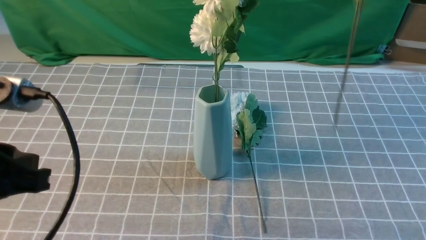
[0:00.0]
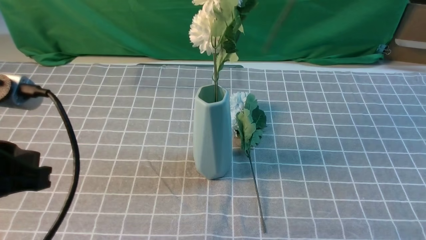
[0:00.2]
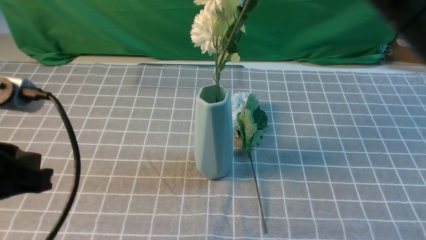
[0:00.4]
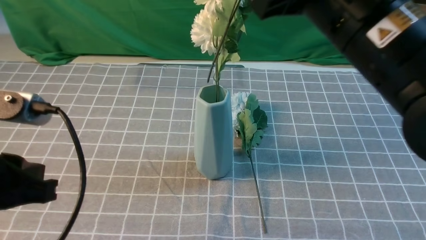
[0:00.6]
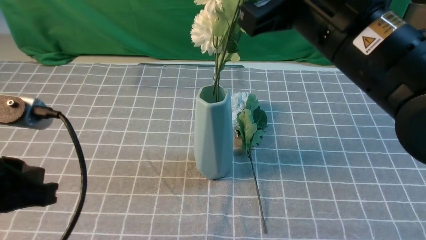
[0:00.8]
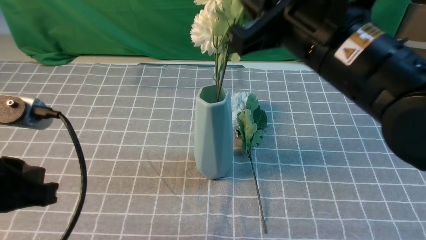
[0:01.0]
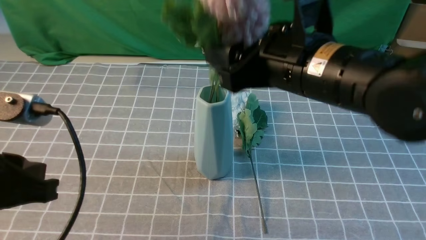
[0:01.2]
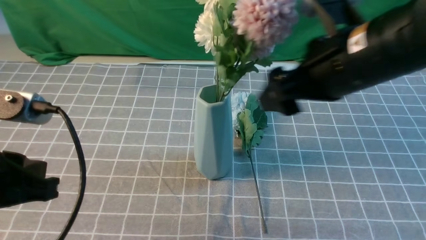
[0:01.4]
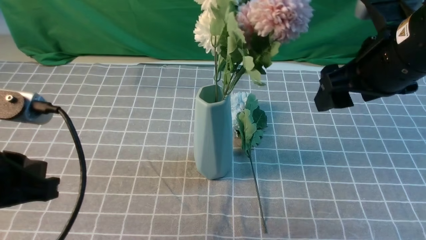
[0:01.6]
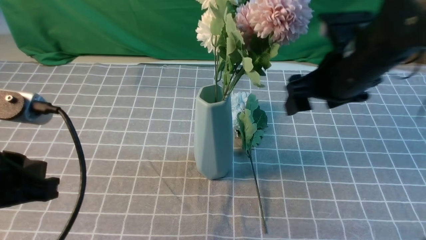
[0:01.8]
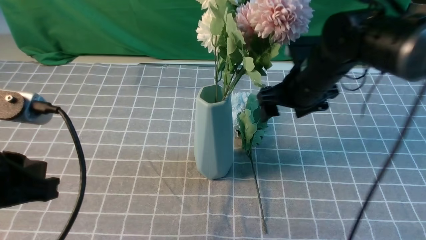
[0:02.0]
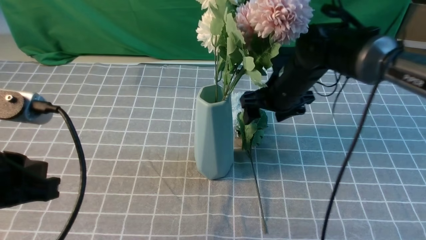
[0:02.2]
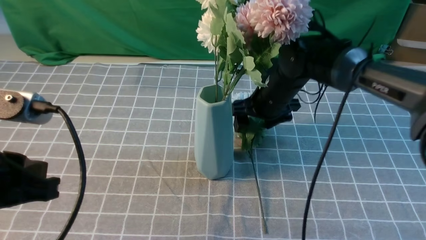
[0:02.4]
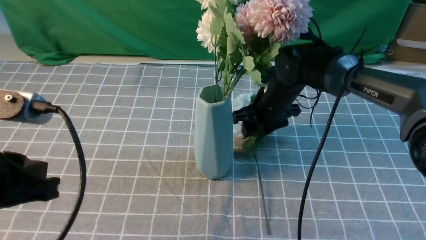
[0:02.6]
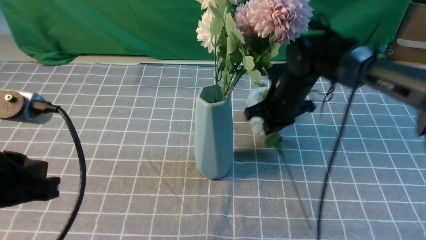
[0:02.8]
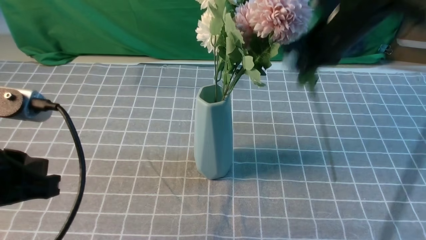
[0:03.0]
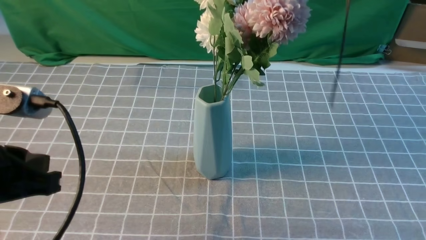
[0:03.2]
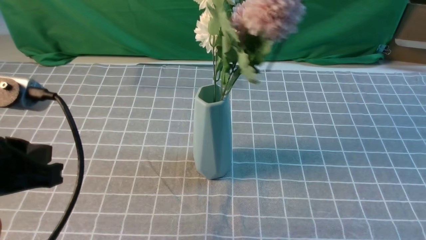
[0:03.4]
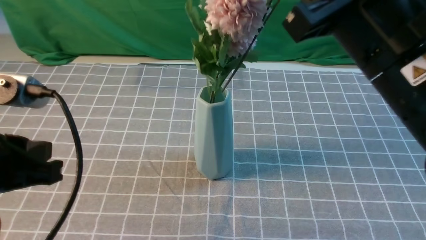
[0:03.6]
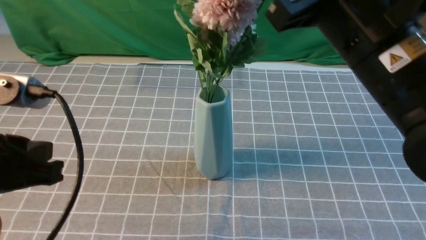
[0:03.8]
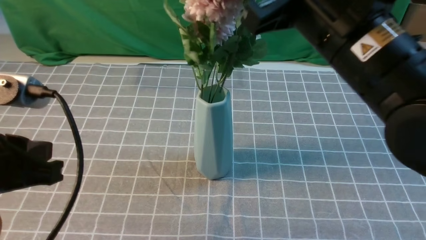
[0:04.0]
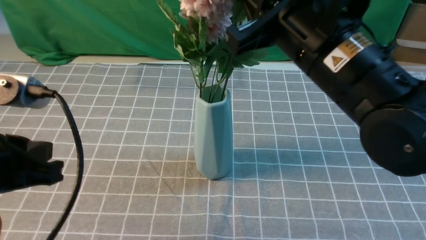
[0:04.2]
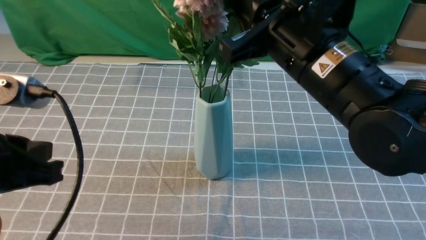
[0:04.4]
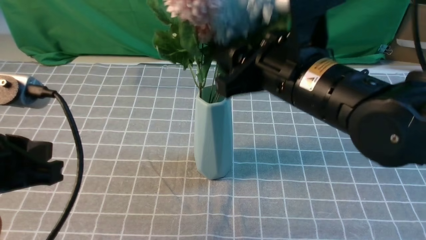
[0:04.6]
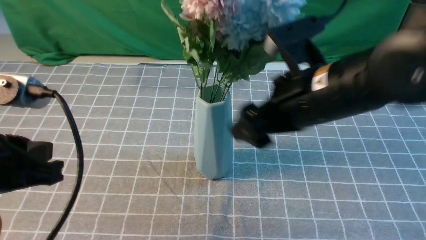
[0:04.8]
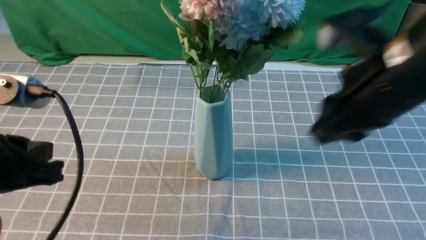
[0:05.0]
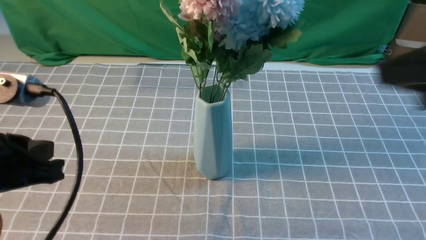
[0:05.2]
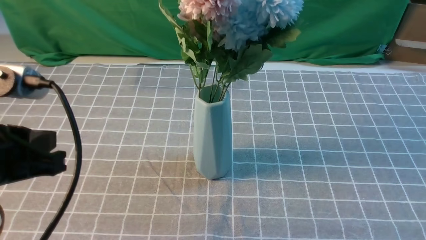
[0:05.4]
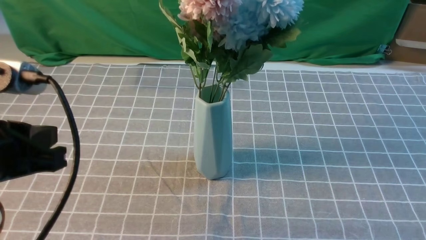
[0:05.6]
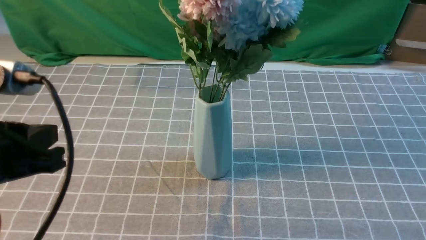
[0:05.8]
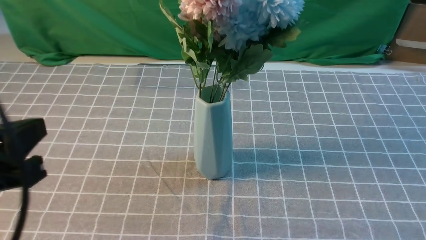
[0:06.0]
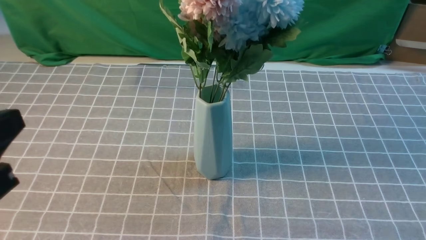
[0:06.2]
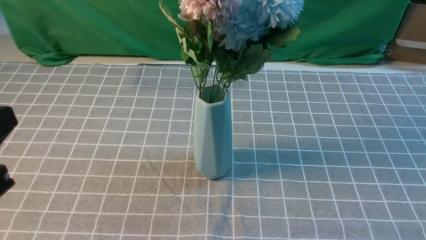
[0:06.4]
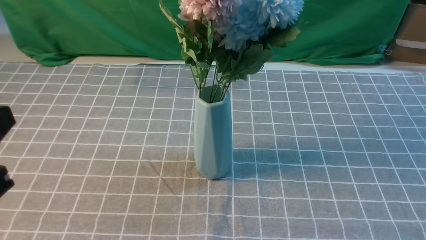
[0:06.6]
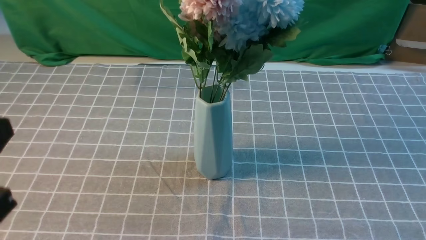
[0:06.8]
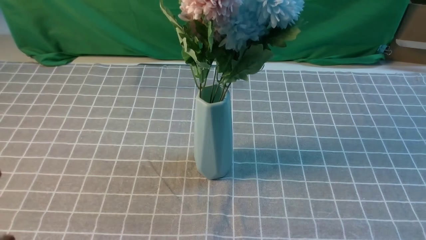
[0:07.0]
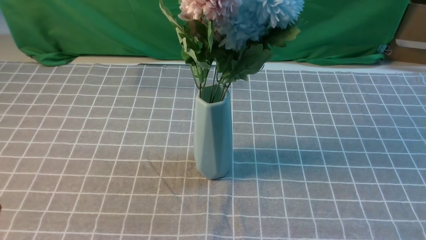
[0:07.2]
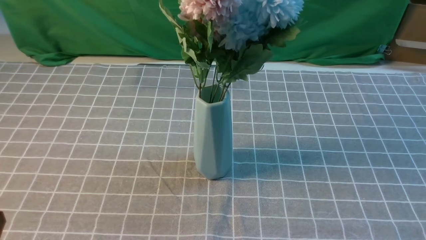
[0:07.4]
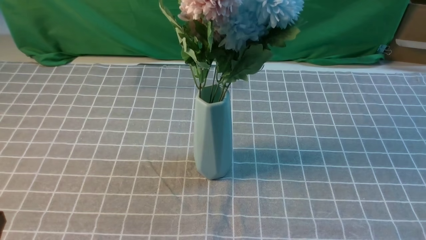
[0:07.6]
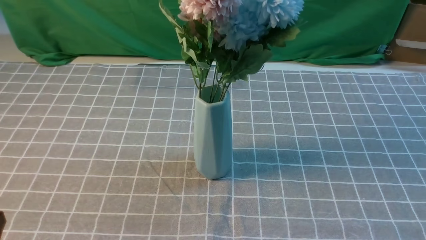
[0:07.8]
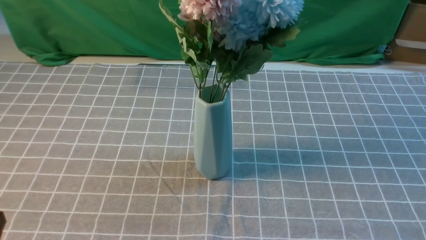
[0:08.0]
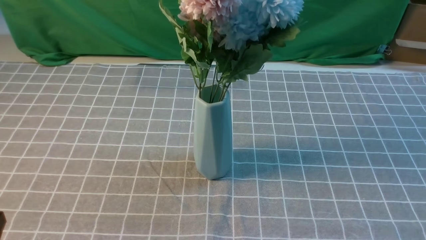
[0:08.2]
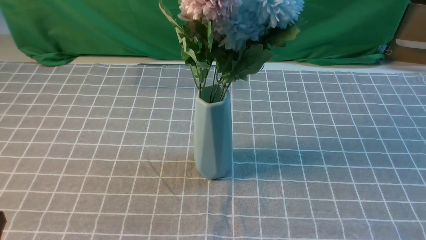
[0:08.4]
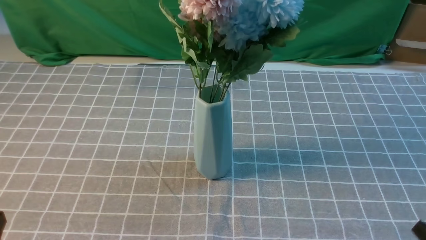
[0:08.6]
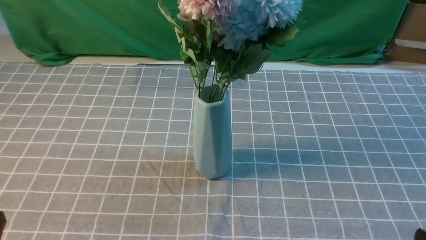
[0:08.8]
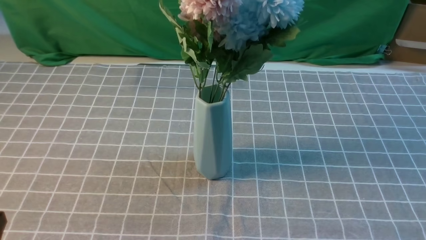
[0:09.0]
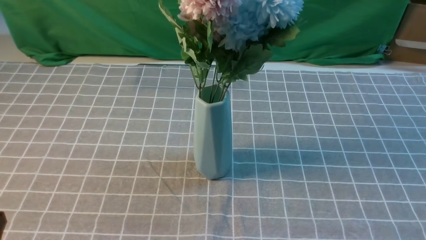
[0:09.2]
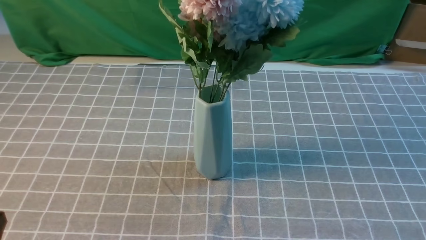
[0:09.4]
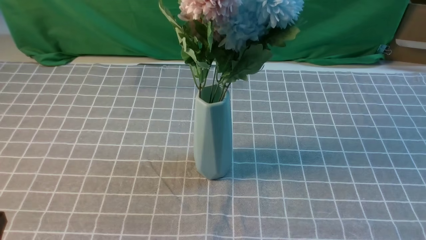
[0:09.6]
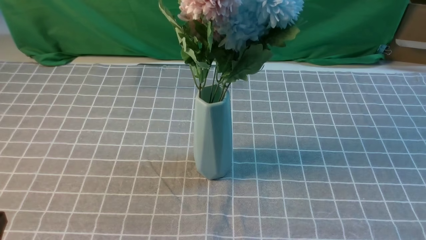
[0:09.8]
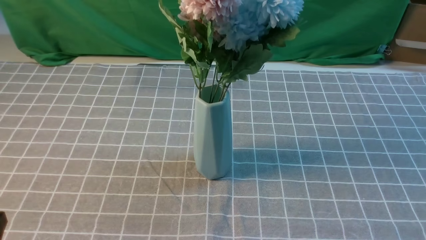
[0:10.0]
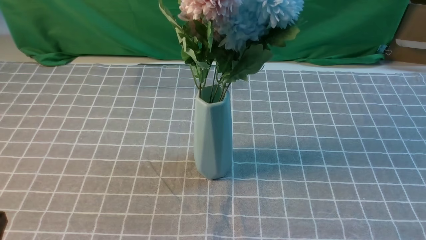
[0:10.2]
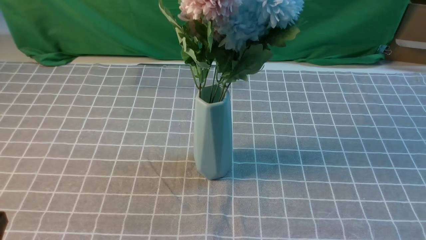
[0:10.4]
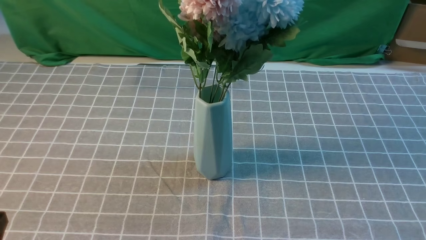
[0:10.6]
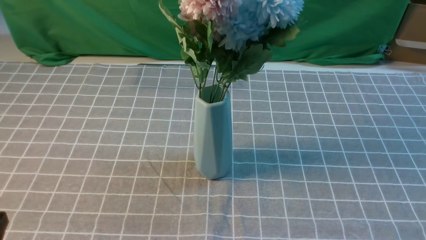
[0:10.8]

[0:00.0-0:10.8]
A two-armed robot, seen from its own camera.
Task of the whole recording: insert the flowers into the vase on the table with the grey tablecloth.
Step, 0:00.0 to 0:01.2: use the right arm to insert the flowers into the vase.
Step, 0:01.4 to 0:02.6: use the right arm to grab a bunch of fresh flowers.
Step, 0:02.8 to 0:04.6: use the right arm to insert the flowers into the vase.
0:00.0 to 0:01.6: The right gripper is displaced downward by some 10 cm, and opens its fingers.
0:01.6 to 0:03.0: The right gripper travels forward by about 10 cm, moves about 15 cm downward and comes back, and closes.
0:03.0 to 0:04.6: The right gripper goes some 15 cm backward and to the left, and opens its fingers.
0:04.6 to 0:06.2: The right gripper is displaced backward and to the right by roughly 30 cm. The left gripper shifts by approximately 5 cm.
0:06.2 to 0:07.8: The left gripper goes roughly 15 cm downward.
0:09.2 to 0:10.8: Both grippers stay put.
